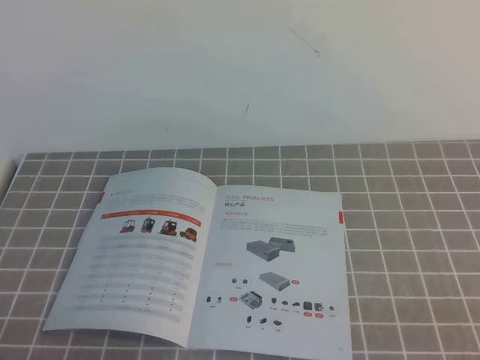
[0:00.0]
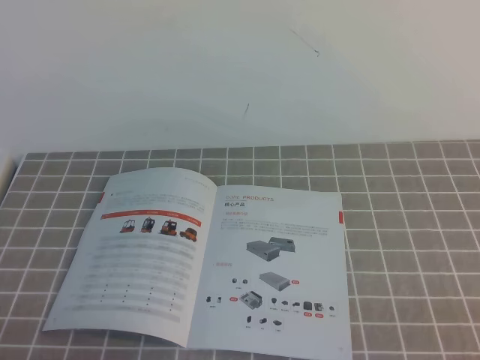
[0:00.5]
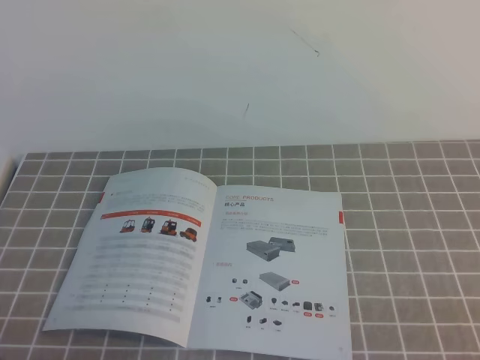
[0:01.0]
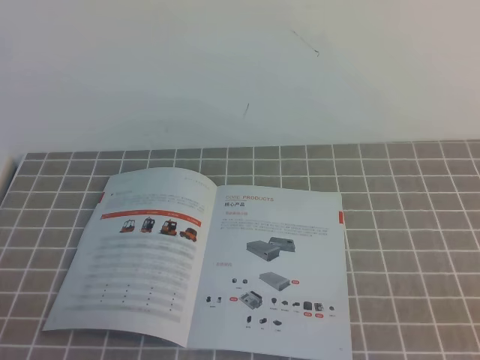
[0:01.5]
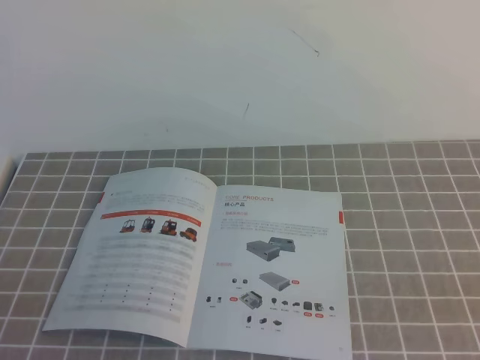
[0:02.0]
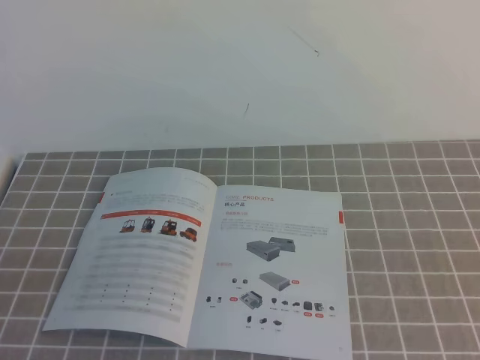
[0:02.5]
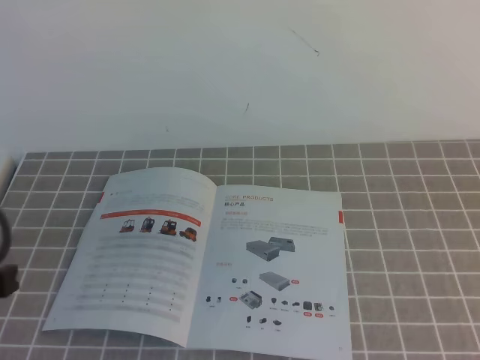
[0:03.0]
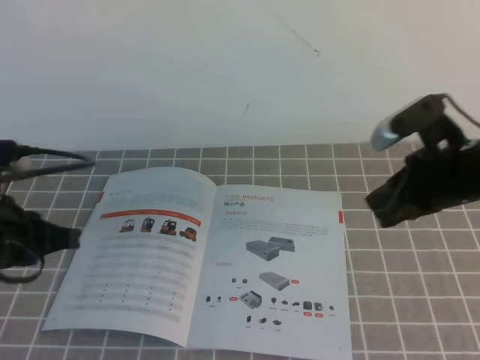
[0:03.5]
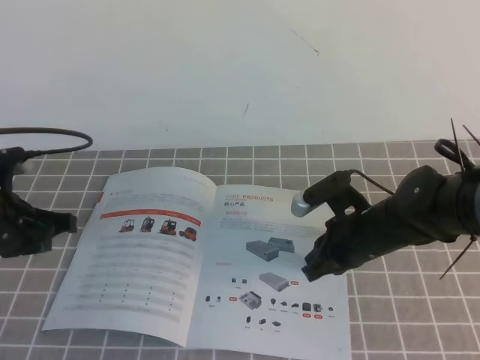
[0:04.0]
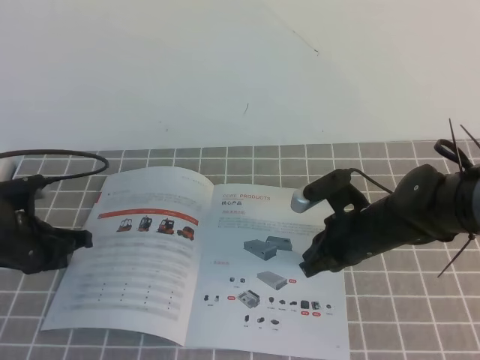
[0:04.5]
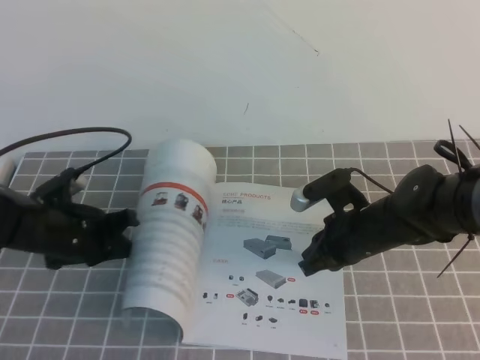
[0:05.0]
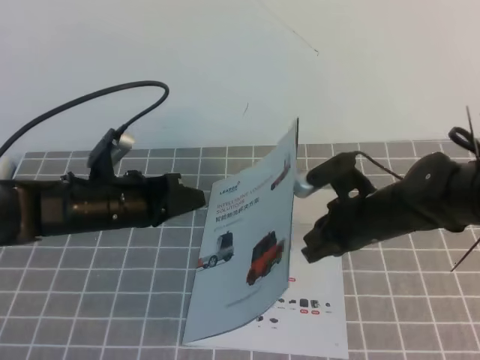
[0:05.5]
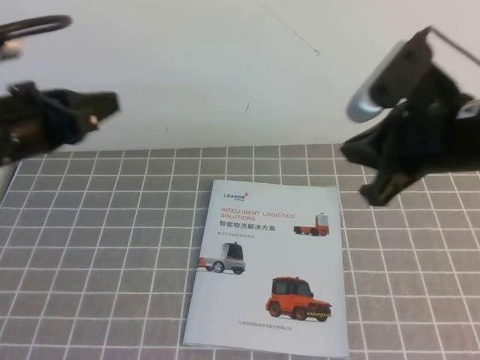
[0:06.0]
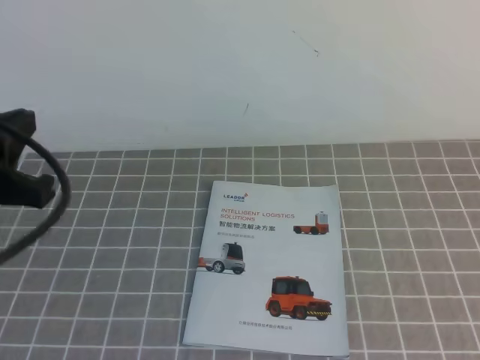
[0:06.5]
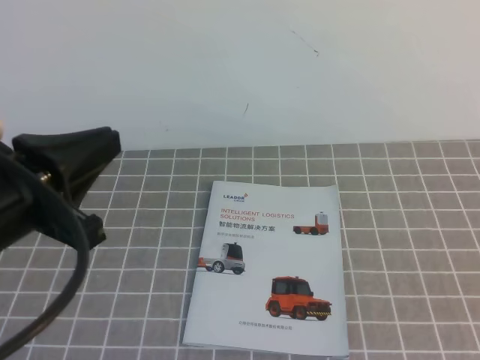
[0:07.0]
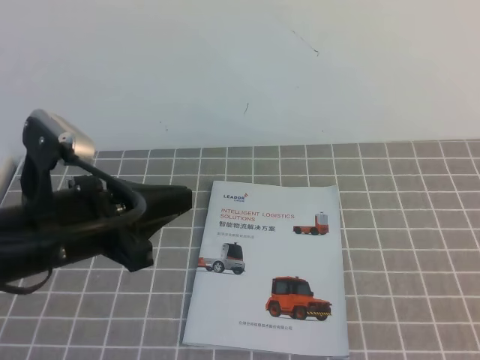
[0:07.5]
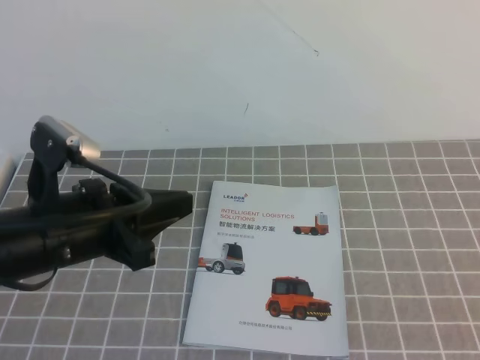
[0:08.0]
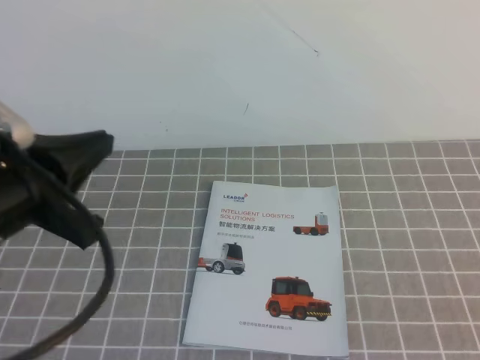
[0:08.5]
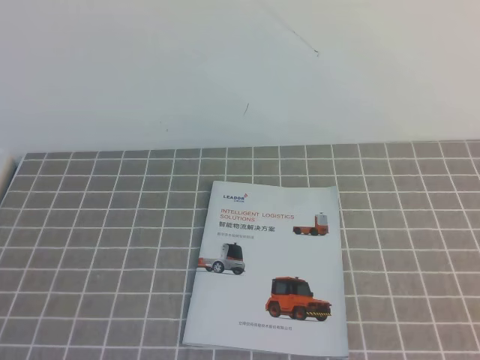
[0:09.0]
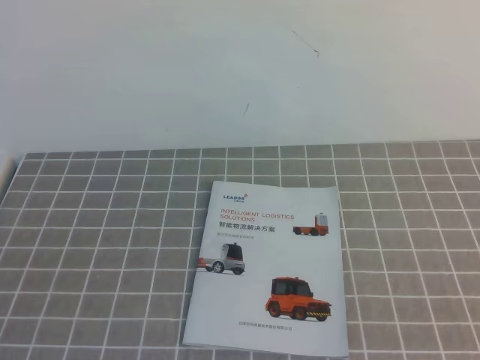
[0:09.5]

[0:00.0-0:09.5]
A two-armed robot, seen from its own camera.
Task of the whole recording: on the grey tablecloth, hold the book with one hand and close it with the other.
0:02.0 to 0:04.0: The right gripper shifts some 35 cm forward and to the left. Meanwhile the left gripper heads forward, covering approximately 30 cm.
0:04.0 to 0:05.5: The left gripper heads to the right, covering some 10 cm.
0:05.5 to 0:07.5: The left gripper is displaced backward and upward by about 15 cm. Meanwhile the right gripper travels backward and to the right by about 35 cm.
0:07.5 to 0:09.5: The left gripper goes about 20 cm backward.

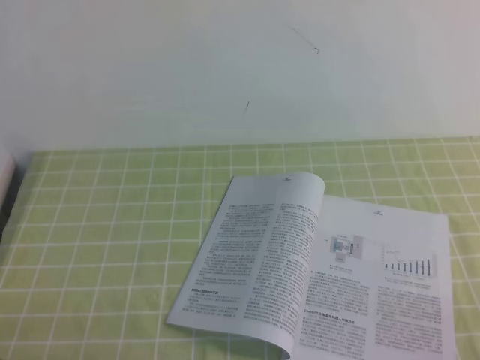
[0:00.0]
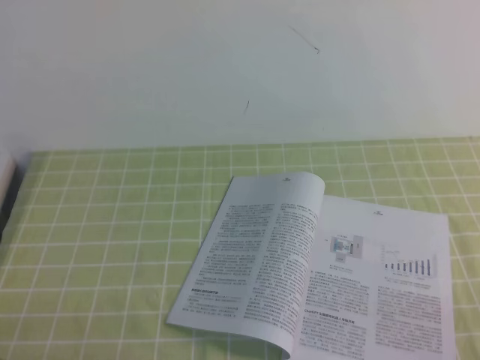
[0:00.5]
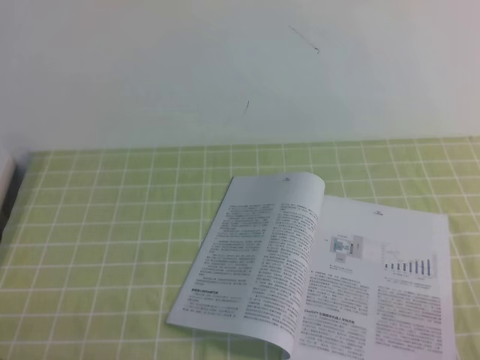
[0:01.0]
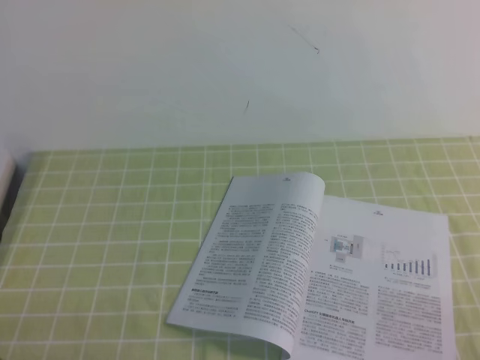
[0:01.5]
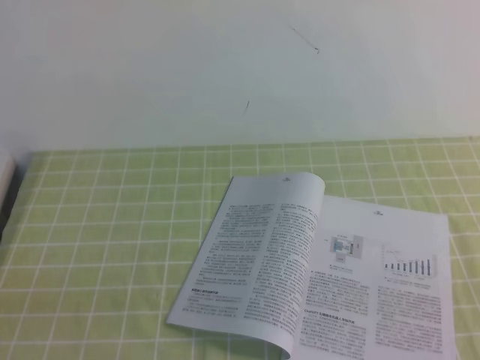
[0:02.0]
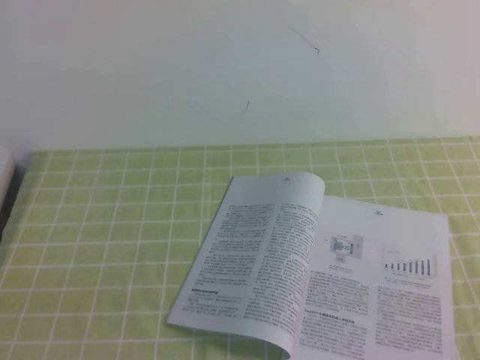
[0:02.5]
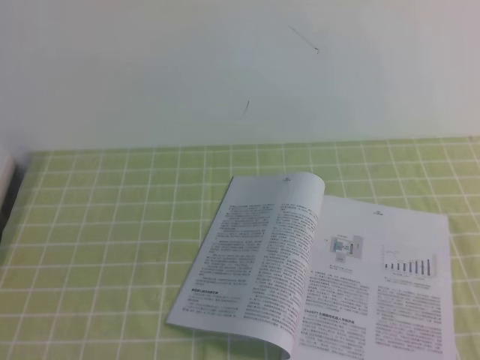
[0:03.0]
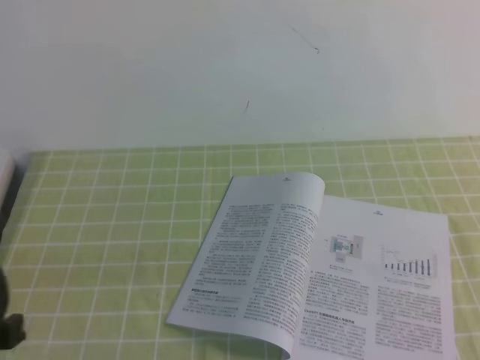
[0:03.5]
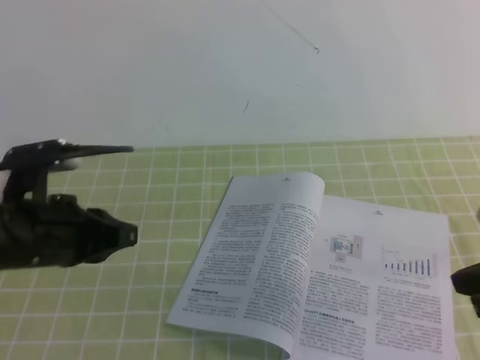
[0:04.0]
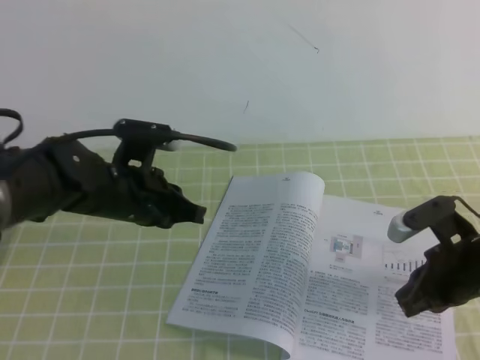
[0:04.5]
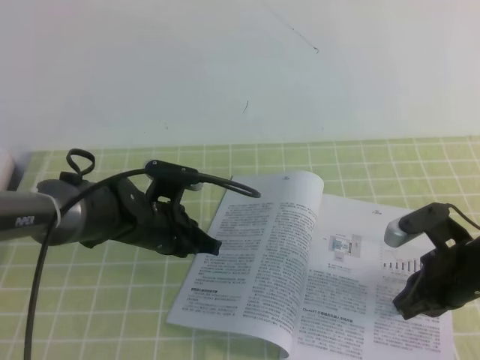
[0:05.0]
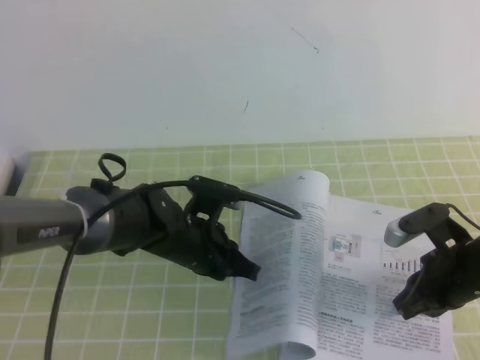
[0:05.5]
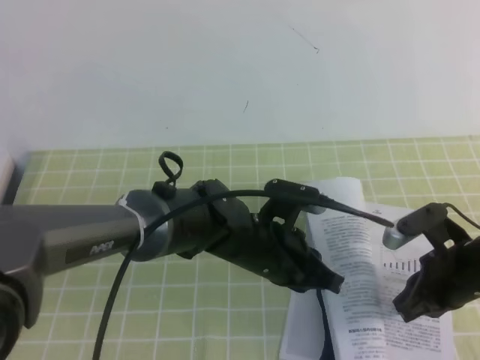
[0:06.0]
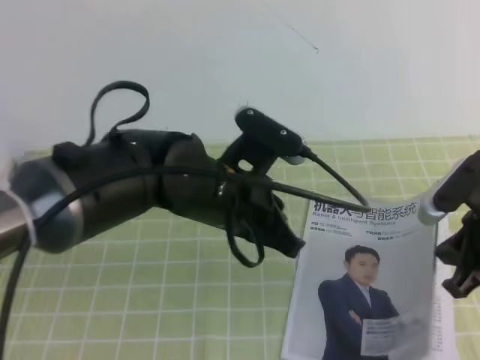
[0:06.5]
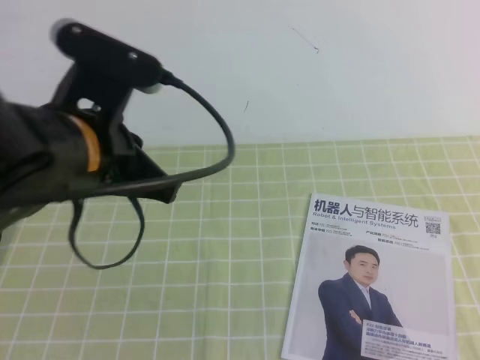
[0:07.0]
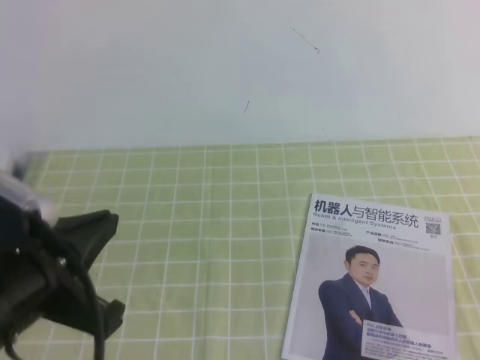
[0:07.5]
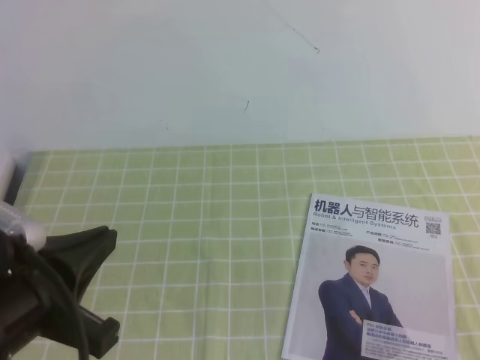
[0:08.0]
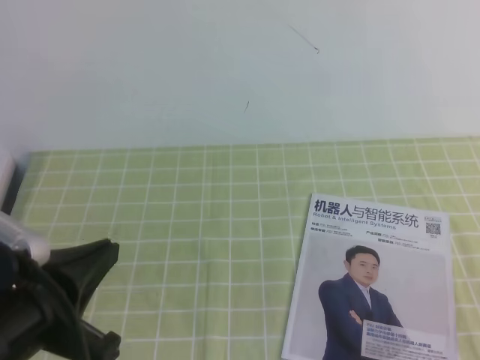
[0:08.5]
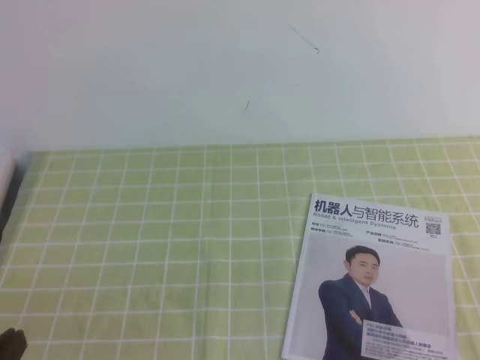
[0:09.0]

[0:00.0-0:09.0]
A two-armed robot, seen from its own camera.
Task of the whole recording: on the green tablecloth, hold the book with one hand and close it with the other.
0:02.0 to 0:04.5: The left gripper heads forward and to the right, covering about 30 cm; the right gripper is displaced forward by approximately 20 cm.
0:04.5 to 0:07.0: The grippers both shift upward and backward by about 15 cm.
0:07.0 to 0:09.0: The right gripper shifts roughly 15 cm backward. Meanwhile the left gripper heads backward, downward and to the left, covering about 25 cm.
